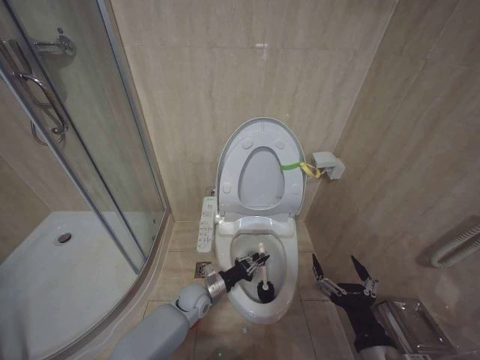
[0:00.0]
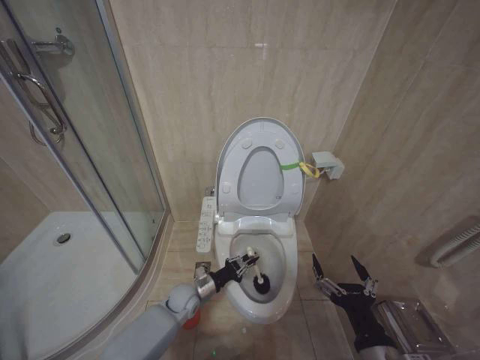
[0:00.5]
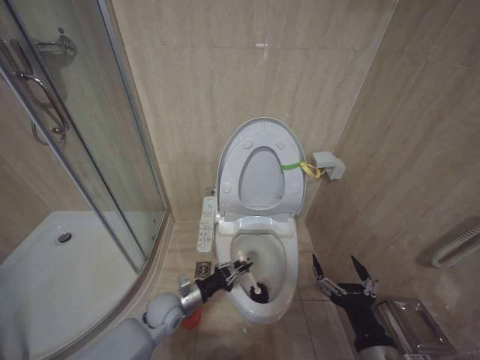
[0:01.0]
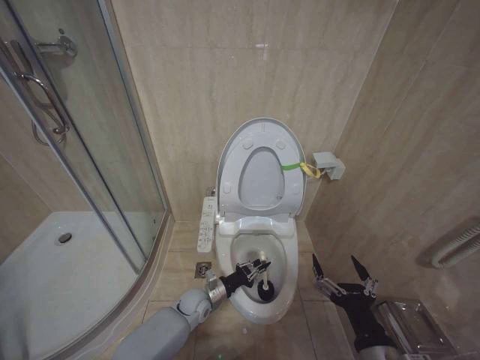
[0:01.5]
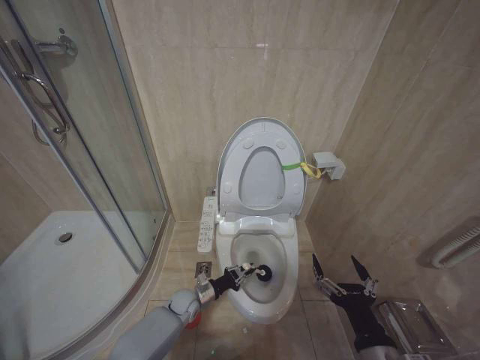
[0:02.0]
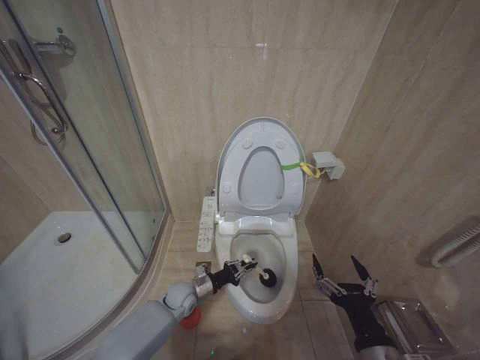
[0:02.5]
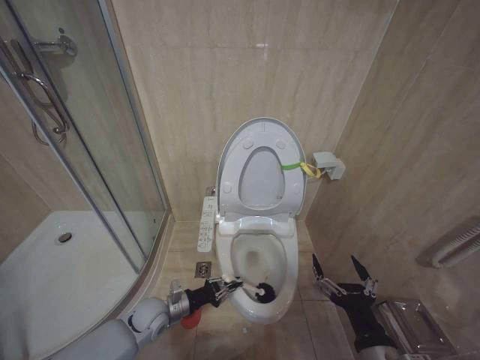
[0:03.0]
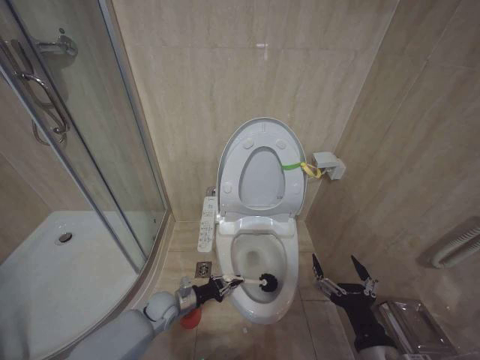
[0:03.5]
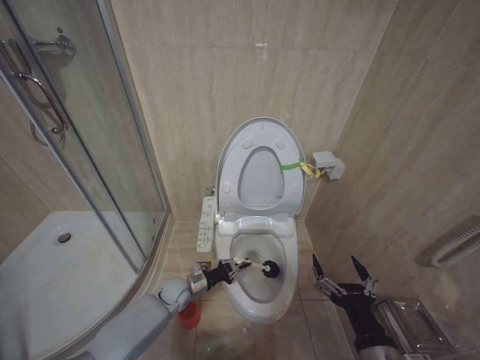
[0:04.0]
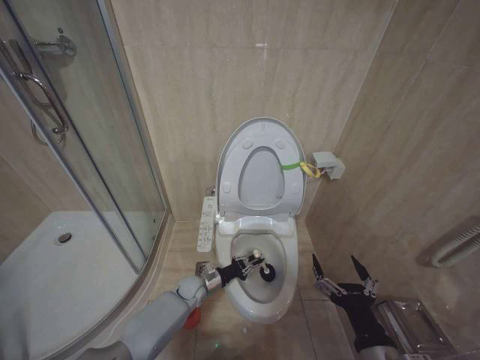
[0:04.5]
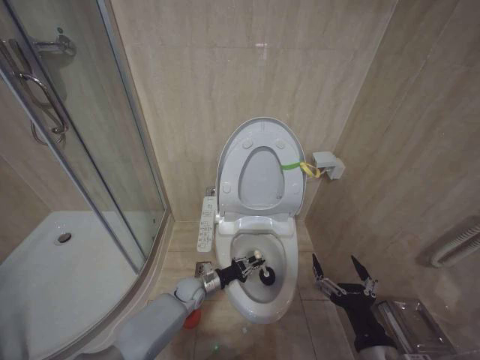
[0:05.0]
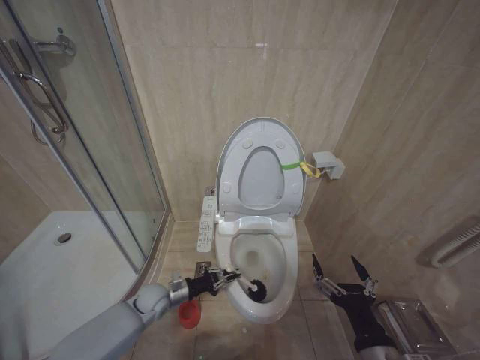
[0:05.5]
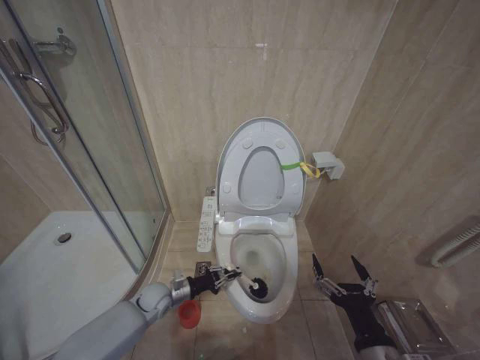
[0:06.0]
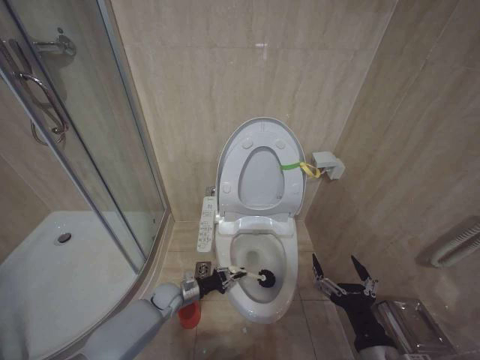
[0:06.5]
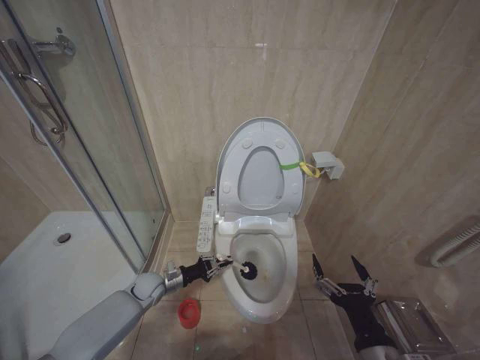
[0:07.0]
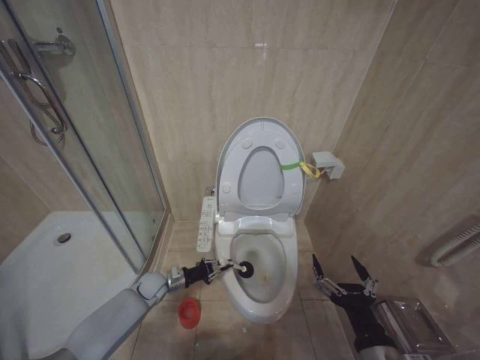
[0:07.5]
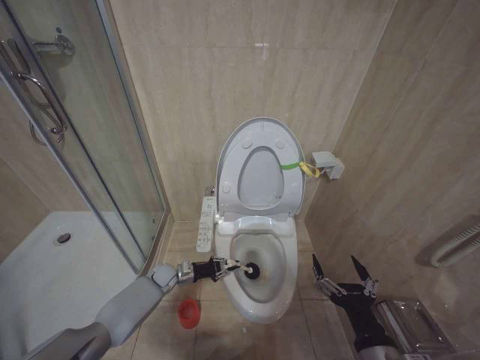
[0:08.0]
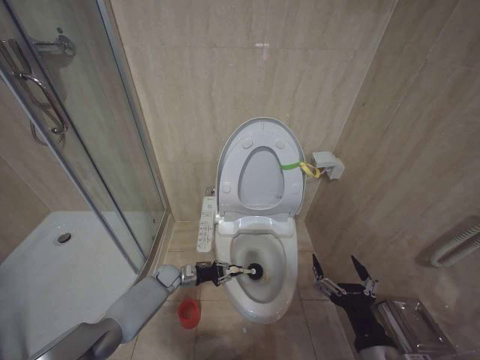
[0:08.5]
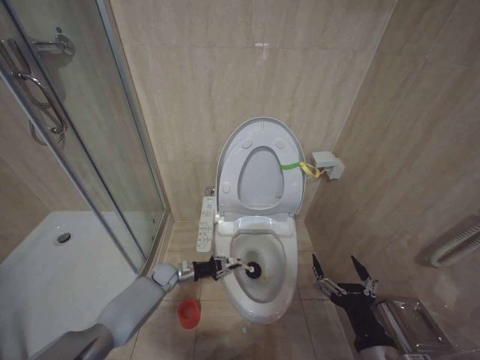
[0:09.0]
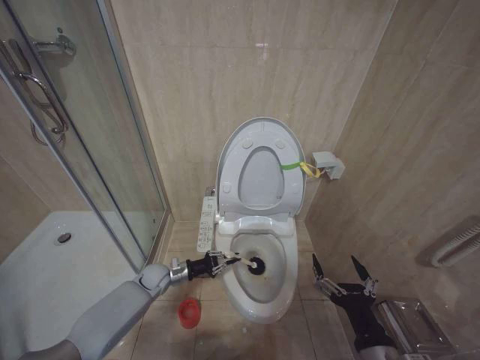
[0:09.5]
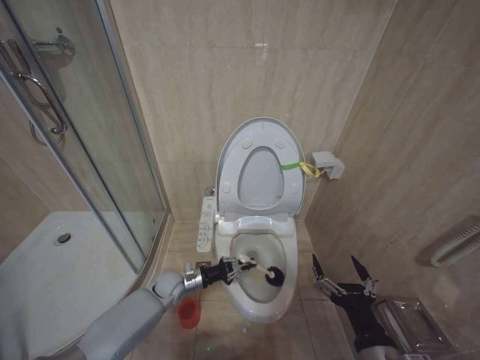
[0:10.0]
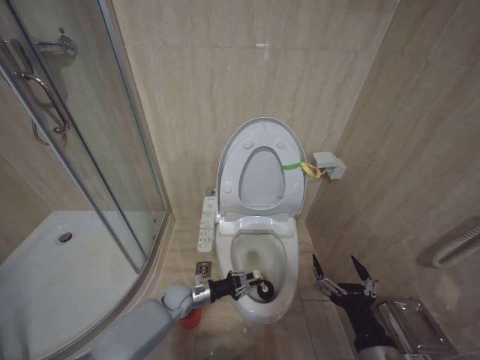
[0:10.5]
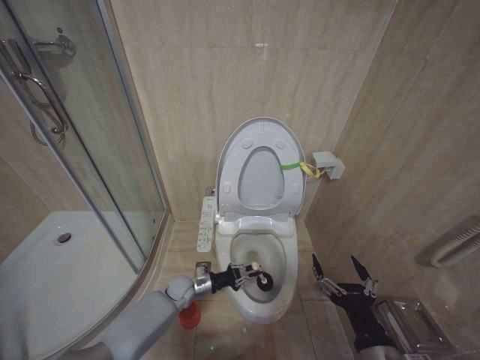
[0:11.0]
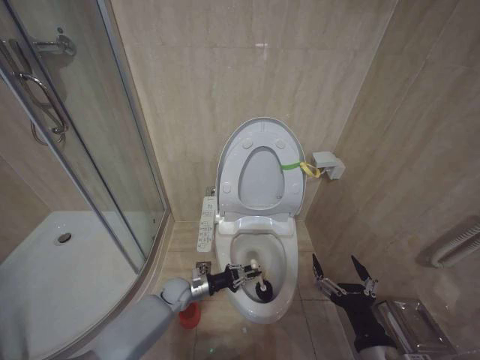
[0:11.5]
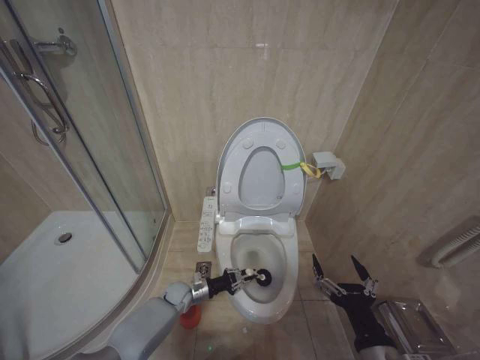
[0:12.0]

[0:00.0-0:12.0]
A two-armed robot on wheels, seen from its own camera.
Task of the whole recording: Open the toilet lid, clean the toilet bowl with a toilet brush, close the toilet lid, and flush.
0:00.0 to 0:02.0: The left gripper is displaced downward by roughly 5 cm.
0:04.0 to 0:06.0: The left gripper ends up some 5 cm from where it was.
0:06.0 to 0:08.0: The left gripper shifts some 10 cm forward.
0:08.0 to 0:10.0: The left gripper ends up approximately 10 cm from where it was.
0:10.0 to 0:12.0: The left gripper heads downward, covering approximately 10 cm.

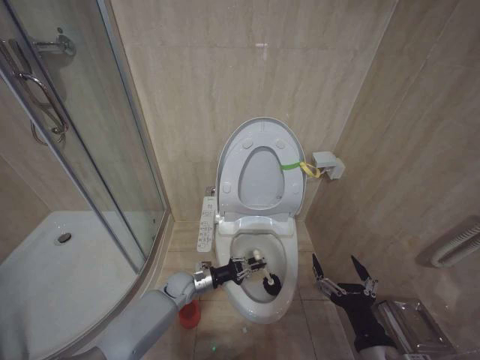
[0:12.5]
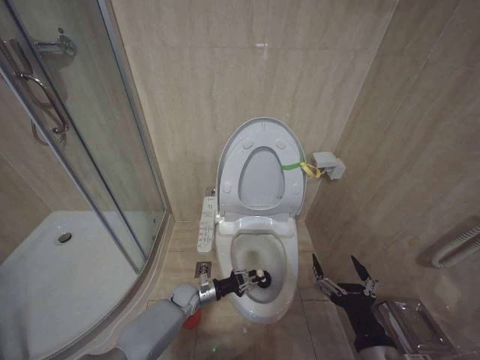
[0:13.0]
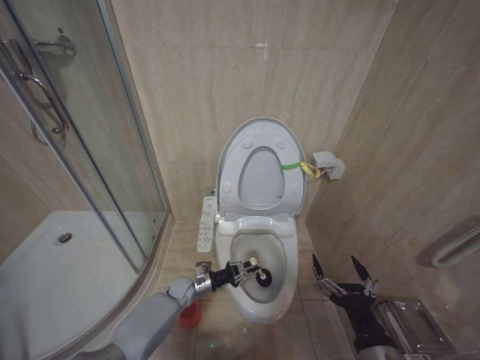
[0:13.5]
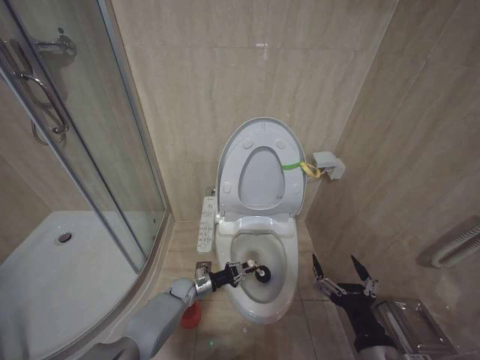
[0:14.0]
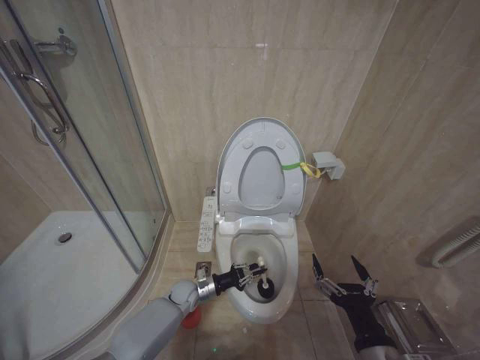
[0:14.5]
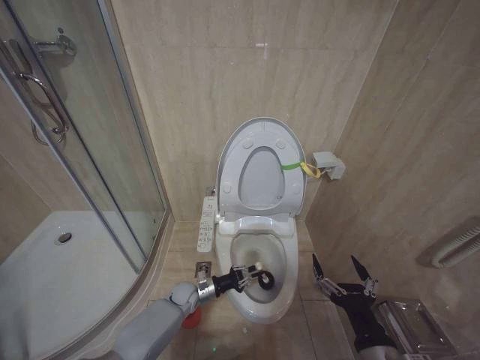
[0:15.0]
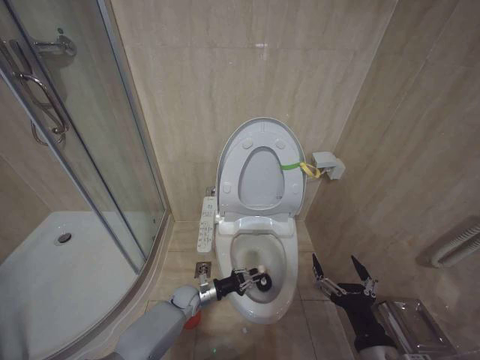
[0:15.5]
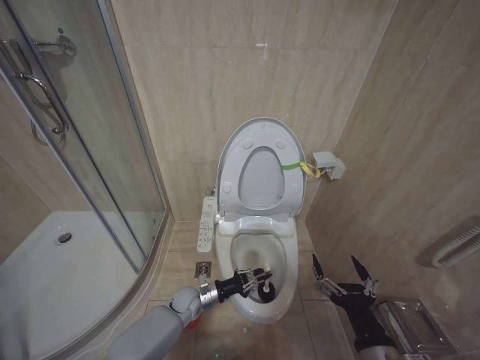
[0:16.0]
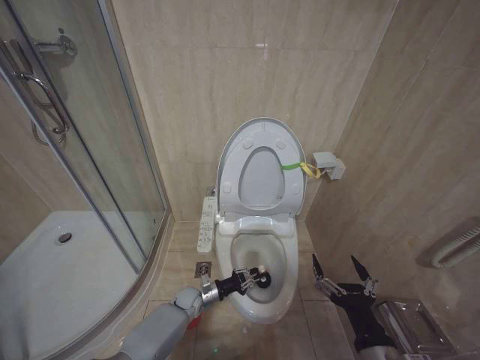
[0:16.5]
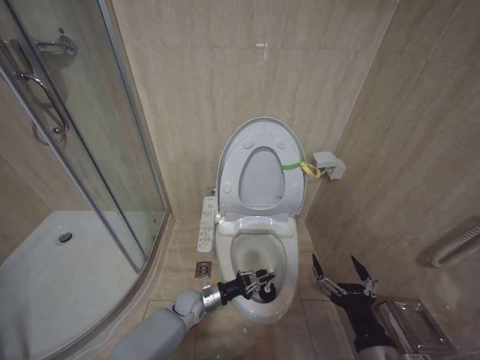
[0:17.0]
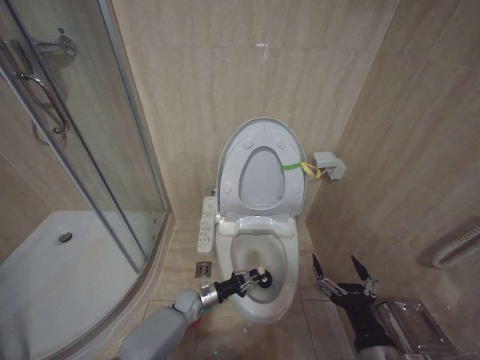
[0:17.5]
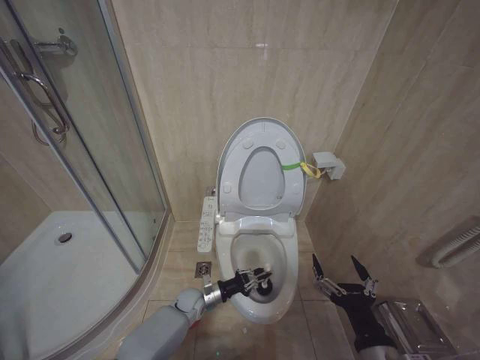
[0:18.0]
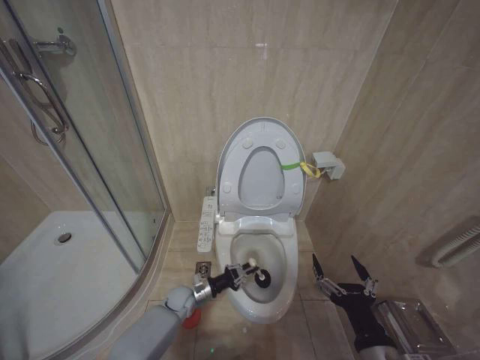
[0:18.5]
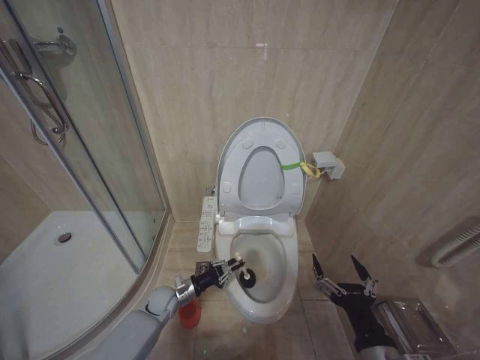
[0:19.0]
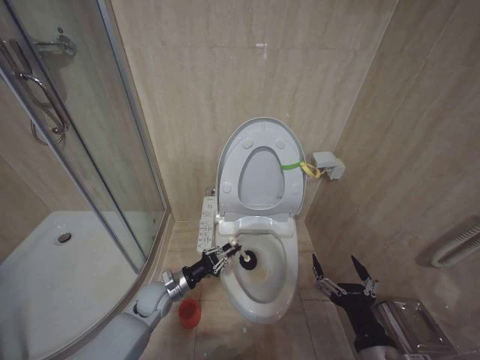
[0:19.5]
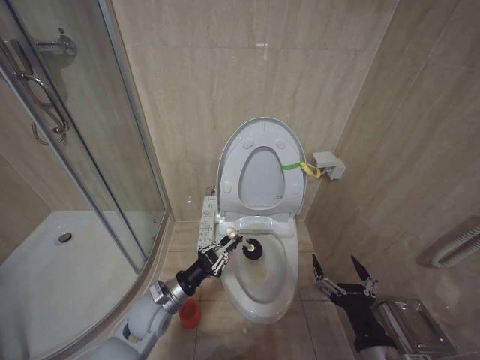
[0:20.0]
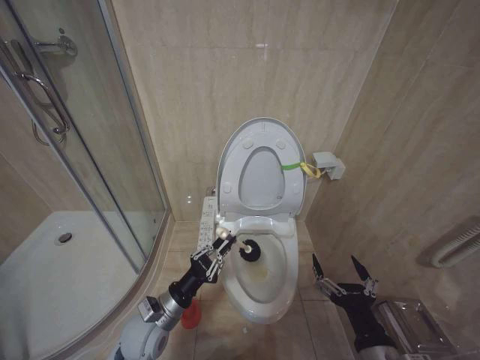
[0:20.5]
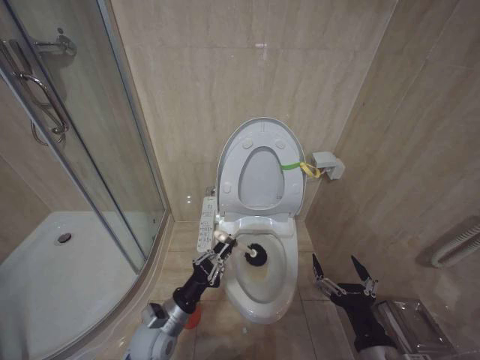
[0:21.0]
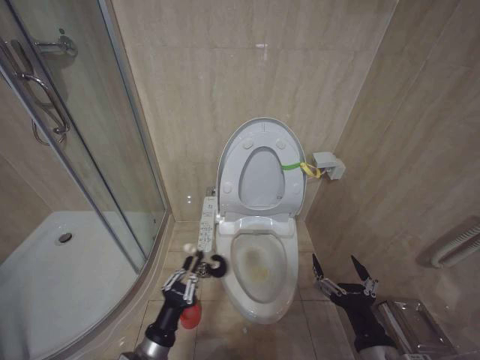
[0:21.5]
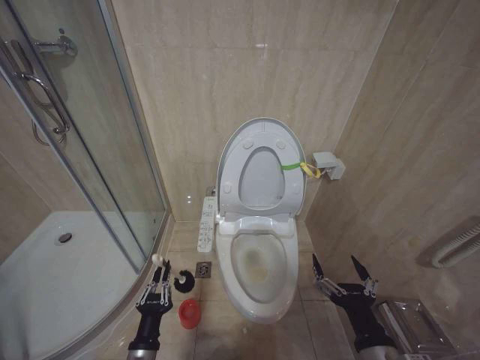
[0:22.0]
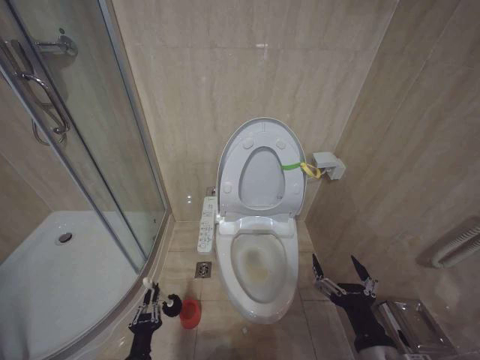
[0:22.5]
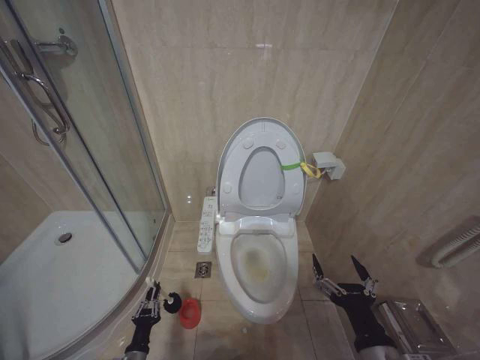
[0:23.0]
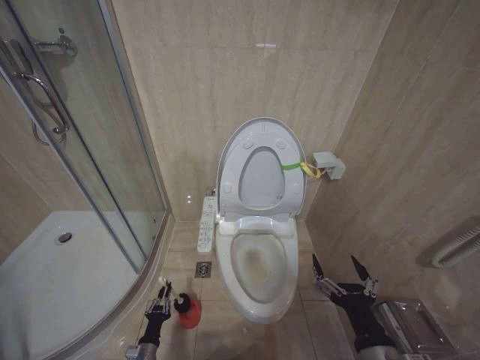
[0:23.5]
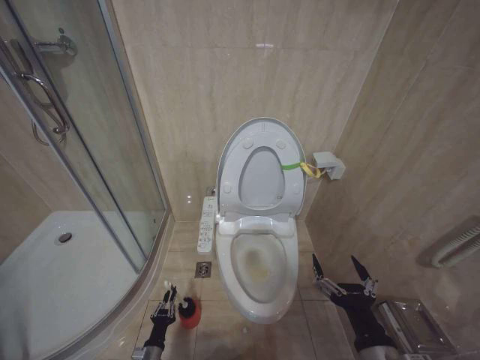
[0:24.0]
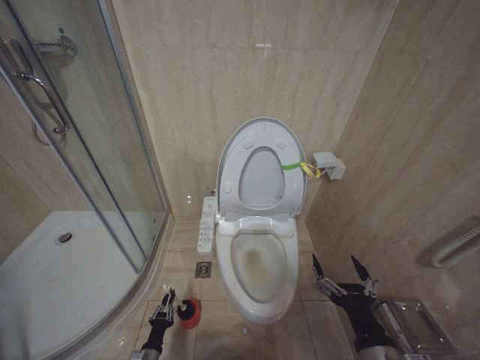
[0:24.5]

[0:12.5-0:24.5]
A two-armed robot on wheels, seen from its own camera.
Task of the whole recording: Open the toilet lid, clean the toilet bowl with a toilet brush, close the toilet lid, and flush.
0:14.5 to 0:18.5: The grippers make only small movements.
0:18.5 to 0:20.5: The left gripper moves upward and backward, about 20 cm.
0:20.5 to 0:22.5: The left gripper heads downward and backward, covering about 20 cm.
0:22.5 to 0:24.5: The left gripper goes roughly 15 cm downward and forward.

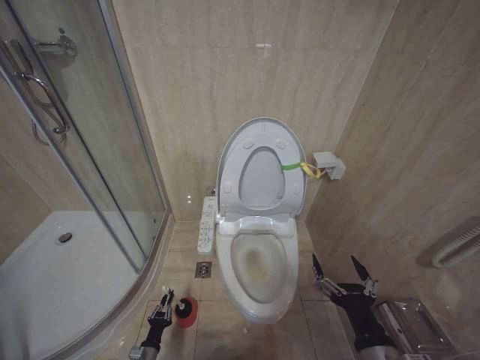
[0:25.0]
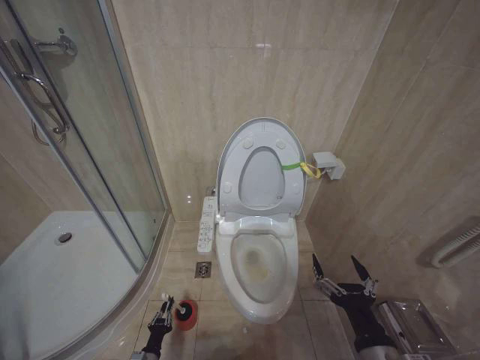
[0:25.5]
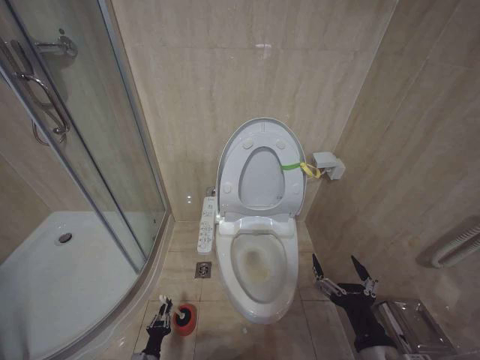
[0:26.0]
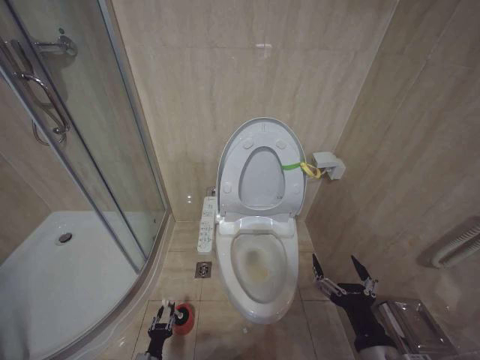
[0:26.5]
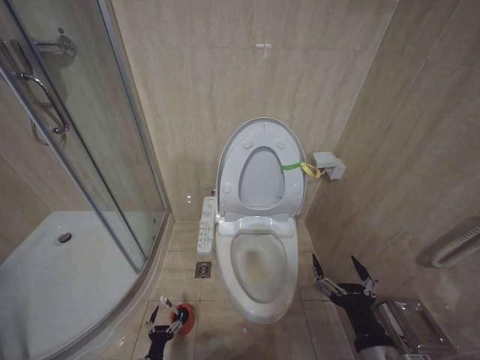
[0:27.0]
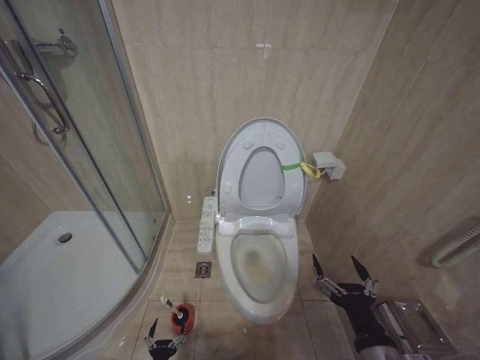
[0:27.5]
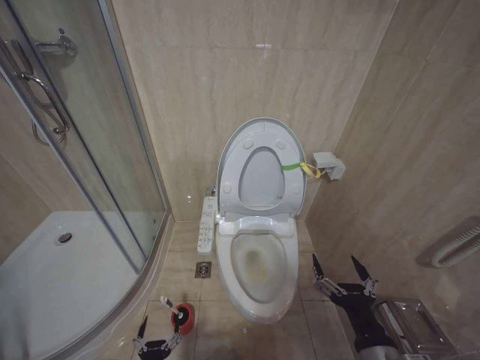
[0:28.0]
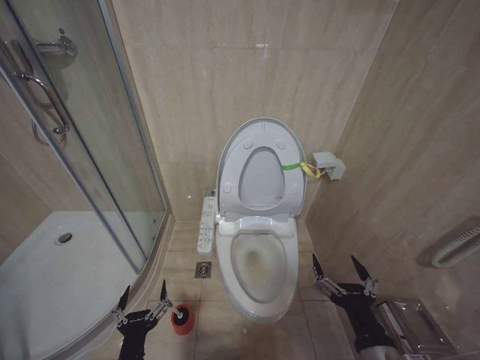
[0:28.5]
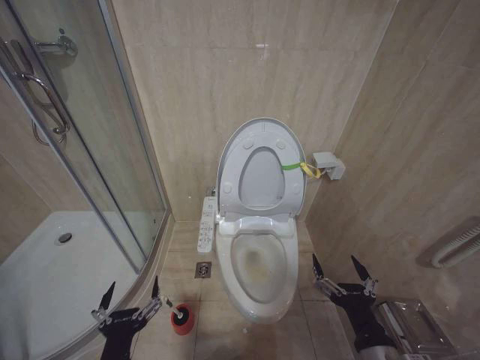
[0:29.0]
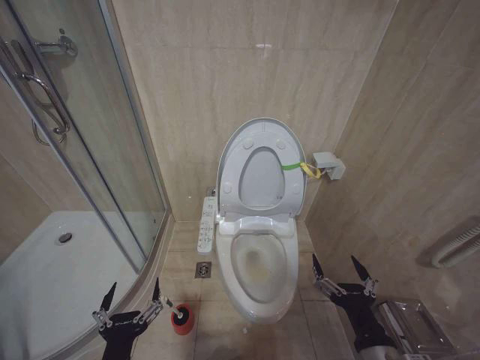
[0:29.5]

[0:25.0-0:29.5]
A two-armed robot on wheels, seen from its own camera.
Task of the whole recording: Open the toilet lid, clean the toilet bowl with a toilet brush, close the toilet lid, and flush.
0:25.0 to 0:27.0: The left gripper opens its fingers.
0:27.0 to 0:29.5: The left gripper travels upward by approximately 35 cm, and opens up.
